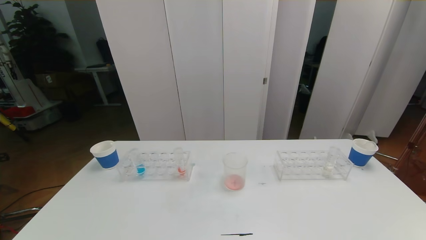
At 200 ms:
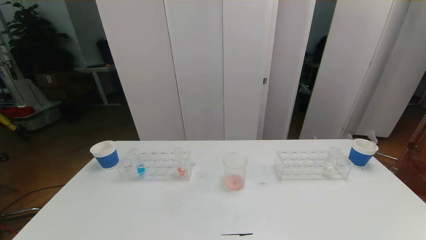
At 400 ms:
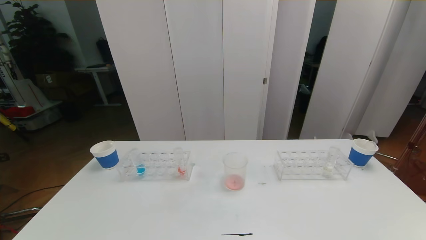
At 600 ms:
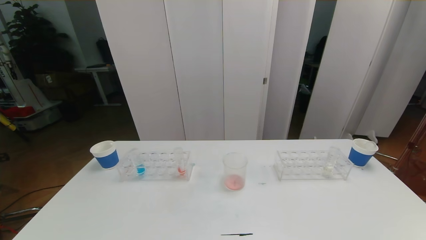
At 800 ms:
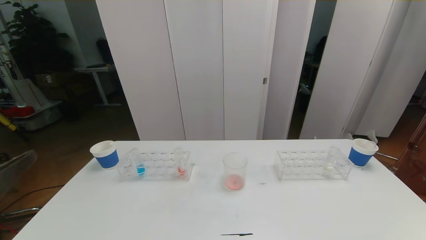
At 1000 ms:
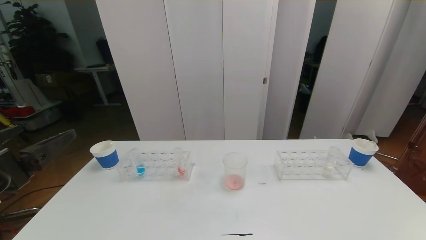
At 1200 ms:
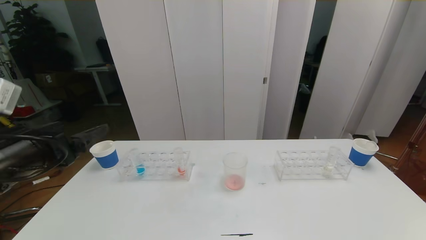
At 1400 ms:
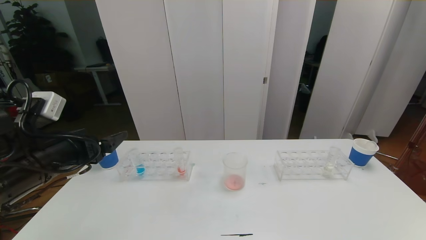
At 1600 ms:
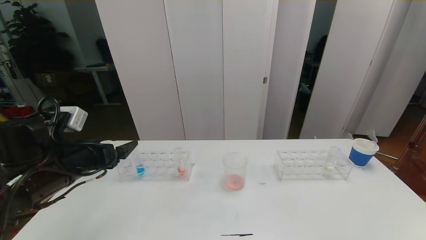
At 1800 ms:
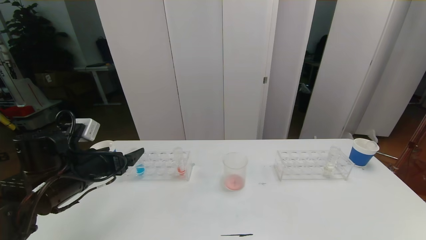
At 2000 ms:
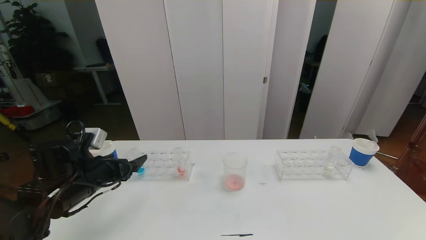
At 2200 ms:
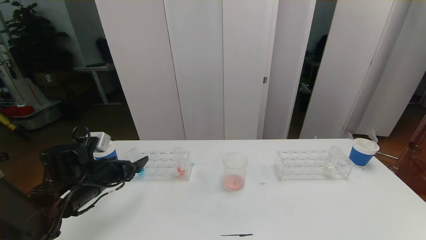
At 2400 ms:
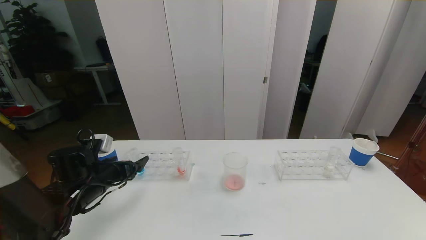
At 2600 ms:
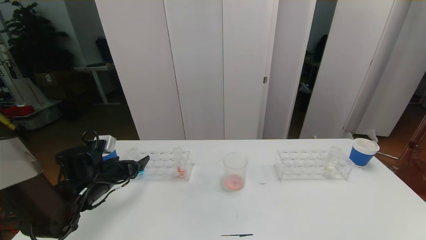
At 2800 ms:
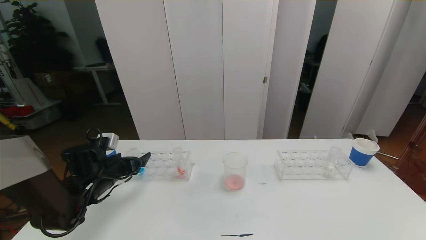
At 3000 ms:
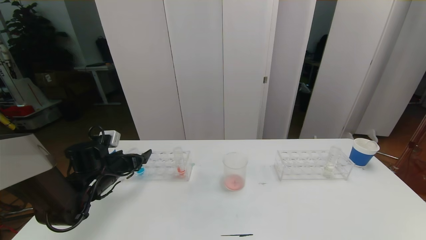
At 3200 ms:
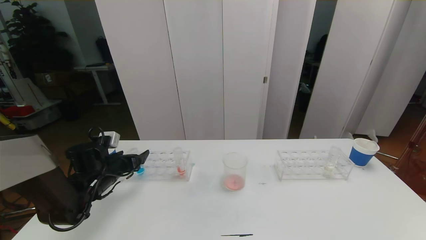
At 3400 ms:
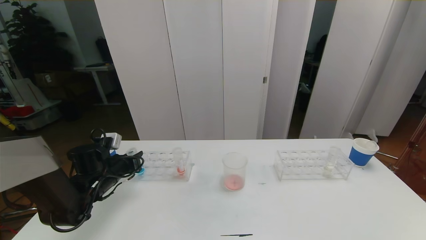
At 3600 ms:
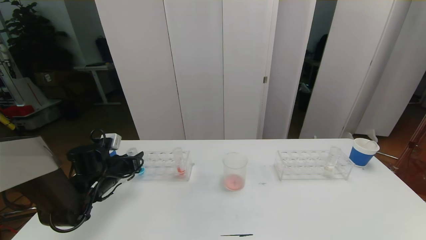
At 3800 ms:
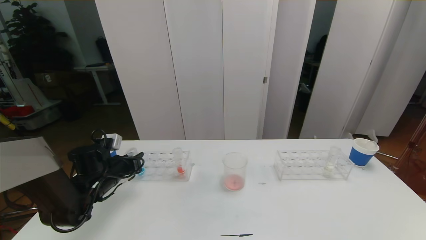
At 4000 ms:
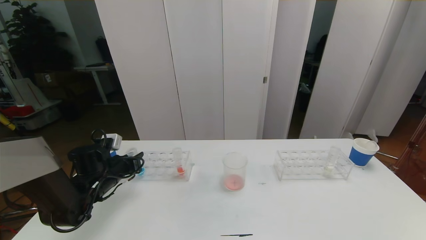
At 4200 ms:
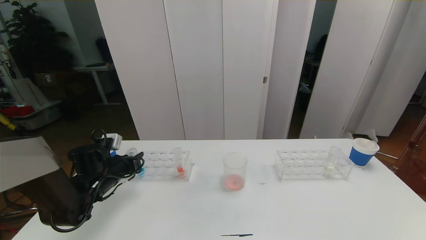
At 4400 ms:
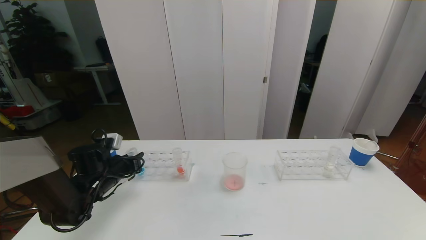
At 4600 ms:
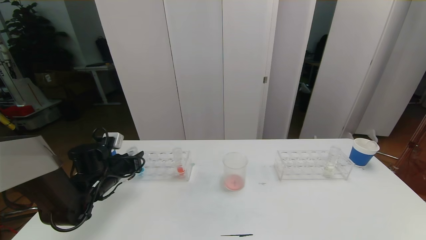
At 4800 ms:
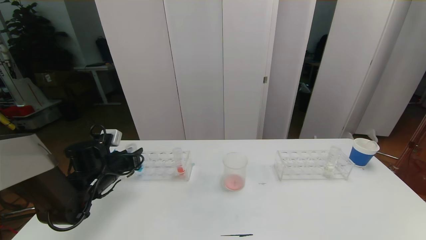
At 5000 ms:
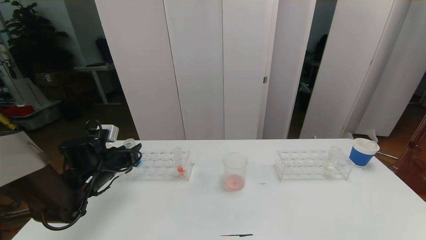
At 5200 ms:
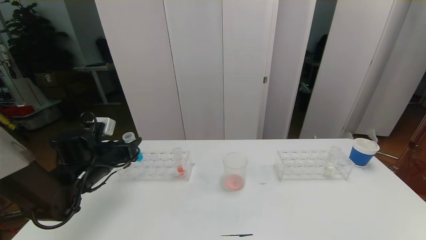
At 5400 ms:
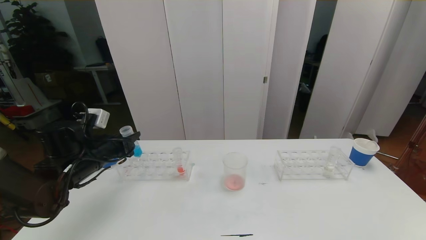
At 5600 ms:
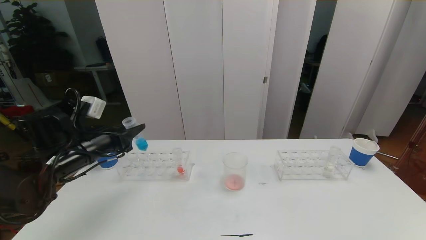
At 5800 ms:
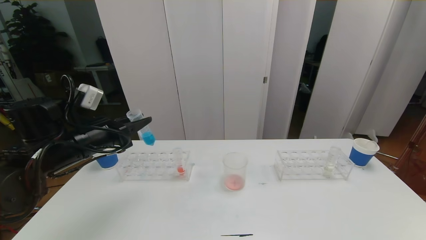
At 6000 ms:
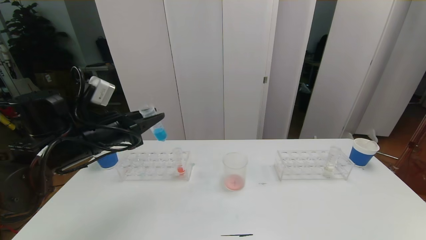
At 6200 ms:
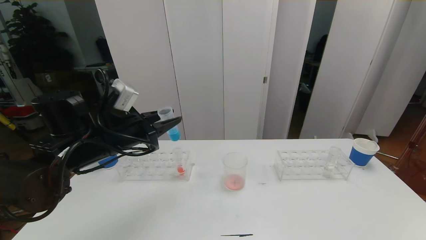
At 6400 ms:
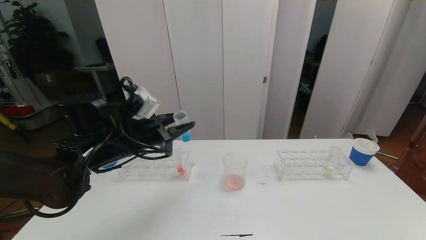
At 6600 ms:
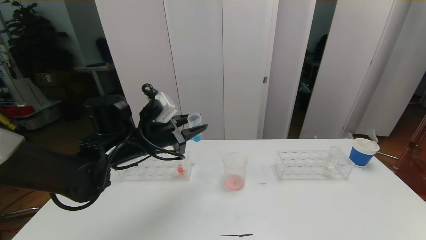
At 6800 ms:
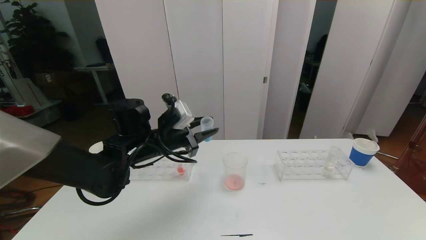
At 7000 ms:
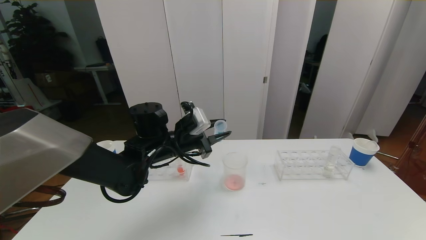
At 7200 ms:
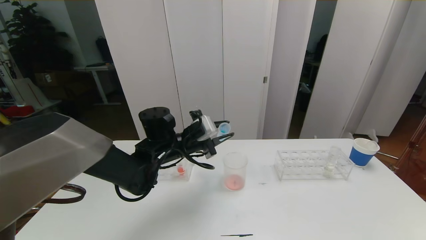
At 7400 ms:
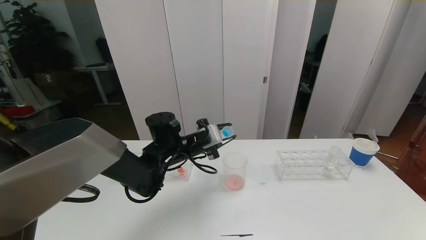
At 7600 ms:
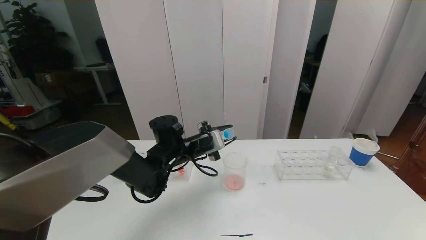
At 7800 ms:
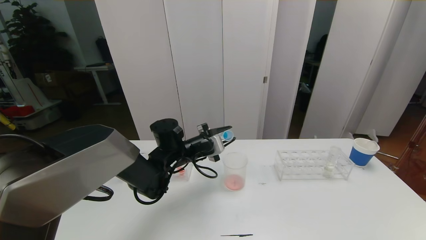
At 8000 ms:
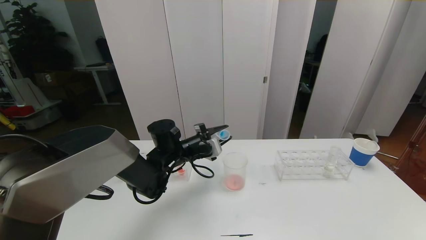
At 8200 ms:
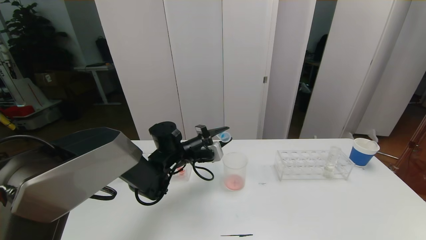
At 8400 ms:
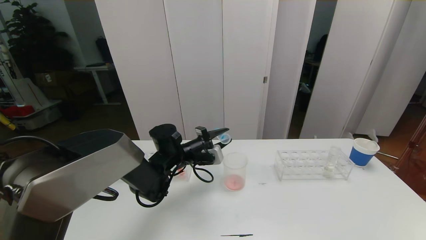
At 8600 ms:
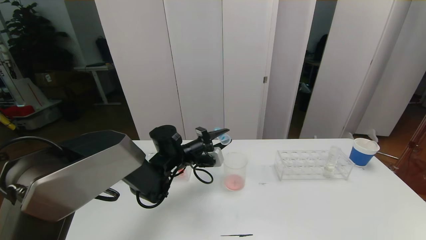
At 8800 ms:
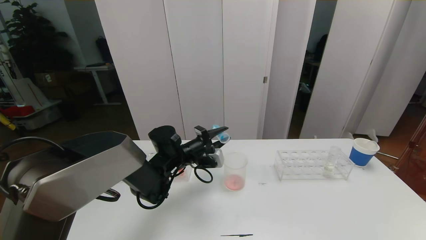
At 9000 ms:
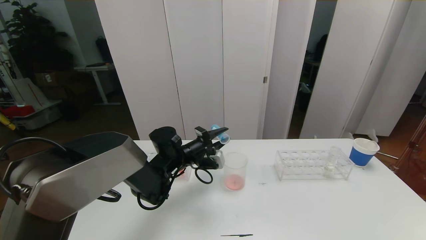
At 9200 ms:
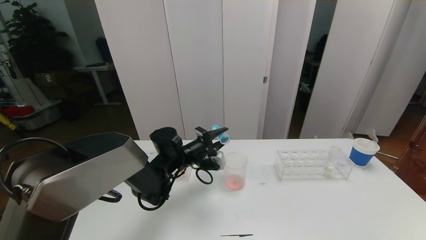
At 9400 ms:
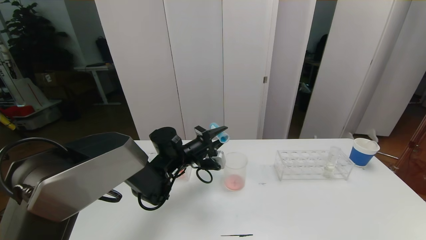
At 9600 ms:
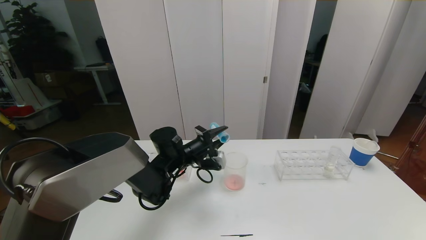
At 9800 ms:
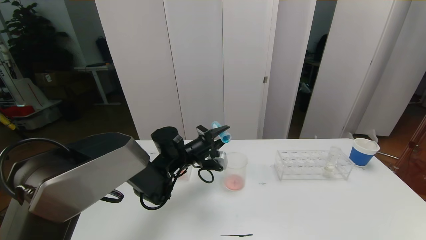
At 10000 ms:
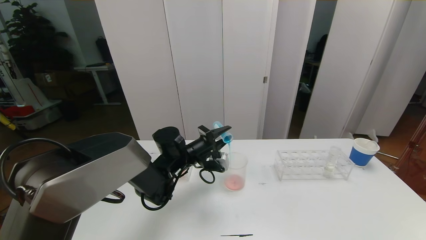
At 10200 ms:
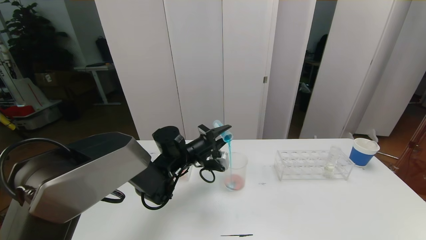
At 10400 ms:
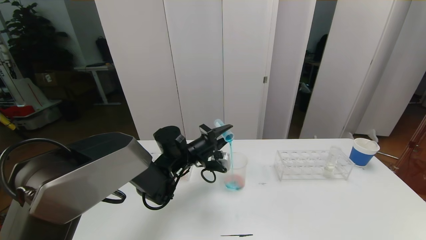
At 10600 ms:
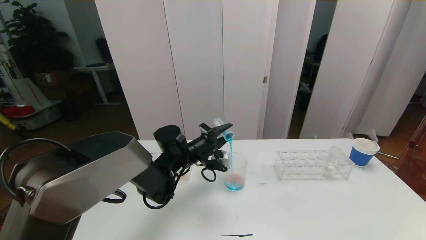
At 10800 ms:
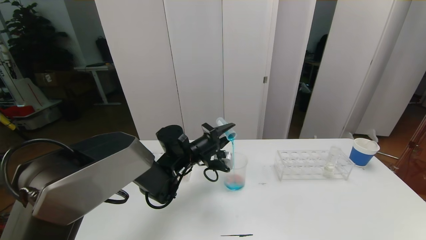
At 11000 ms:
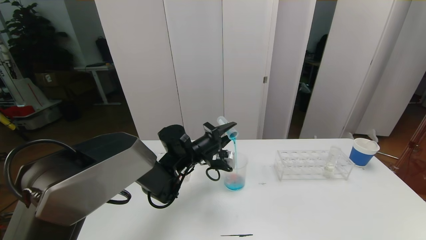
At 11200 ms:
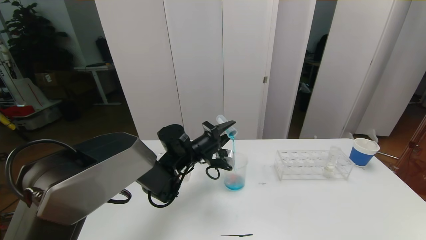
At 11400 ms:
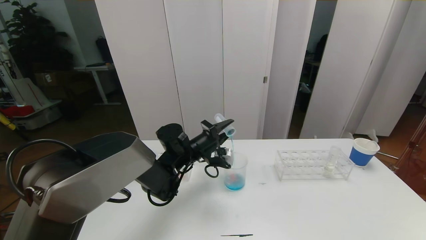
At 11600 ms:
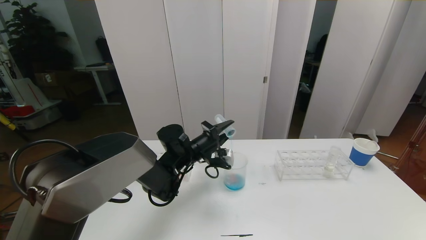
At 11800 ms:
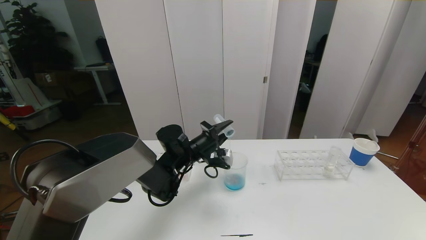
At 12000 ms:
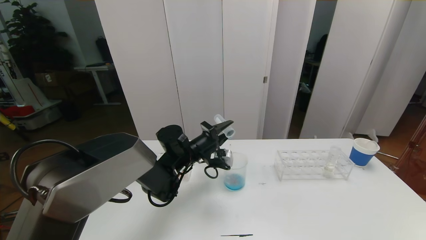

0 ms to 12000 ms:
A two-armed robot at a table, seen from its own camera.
Task of the whole recording: pick up the test tube with red pigment the test tube with blue pigment and the test tube with white pigment by grippers and pour them into the beaker.
0 ms to 1600 ms: The left gripper is displaced forward by about 30 cm.
1600 ms to 3000 ms: The left gripper moves downward and forward, roughly 15 cm.
3000 ms to 4400 ms: The left gripper closes.
4400 ms to 6000 ms: The left gripper heads upward, covering some 15 cm.
6000 ms to 7600 ms: The left gripper is displaced to the right, downward and forward by some 20 cm.
9000 ms to 10400 ms: The grippers stay close to where they were, moving slightly.
10400 ms to 12000 ms: Both grippers stay put.

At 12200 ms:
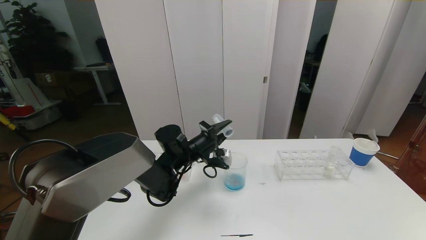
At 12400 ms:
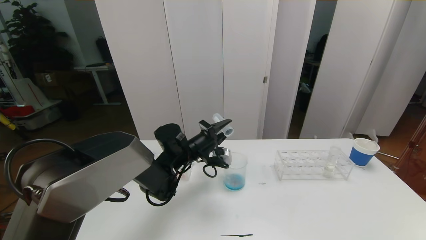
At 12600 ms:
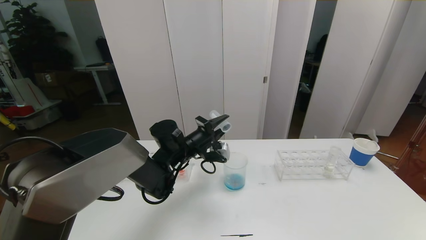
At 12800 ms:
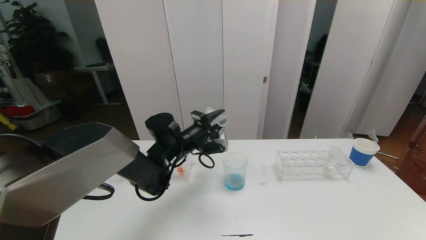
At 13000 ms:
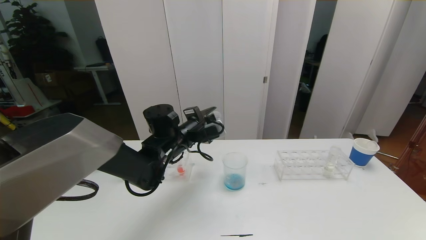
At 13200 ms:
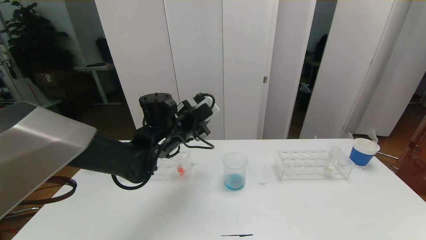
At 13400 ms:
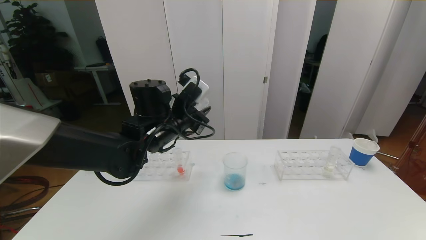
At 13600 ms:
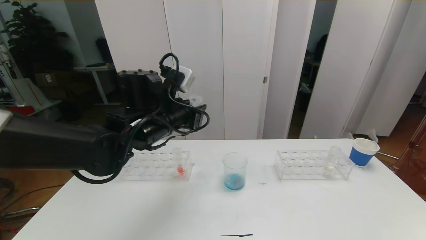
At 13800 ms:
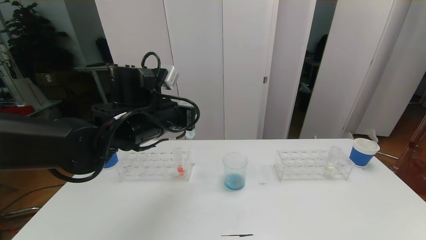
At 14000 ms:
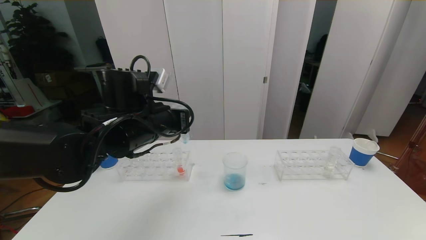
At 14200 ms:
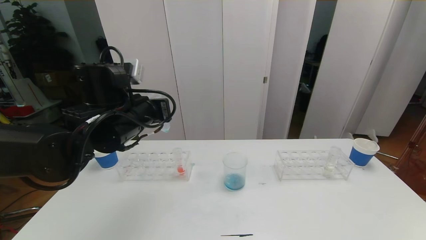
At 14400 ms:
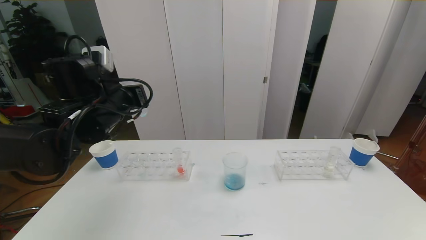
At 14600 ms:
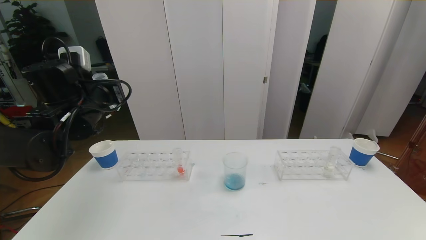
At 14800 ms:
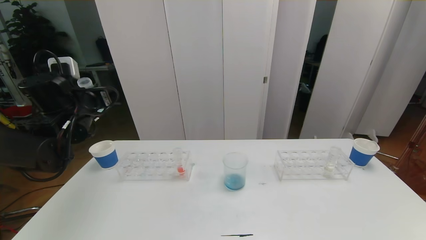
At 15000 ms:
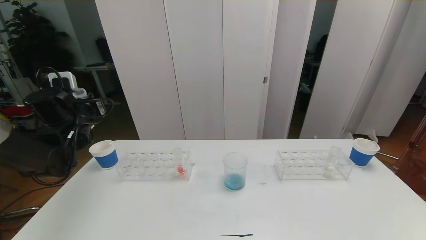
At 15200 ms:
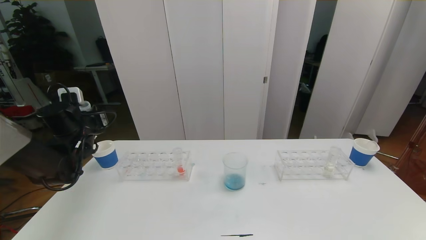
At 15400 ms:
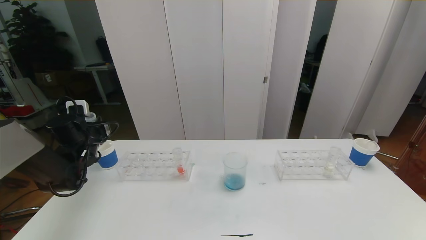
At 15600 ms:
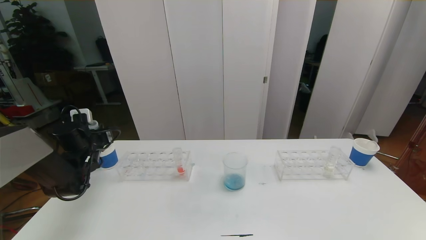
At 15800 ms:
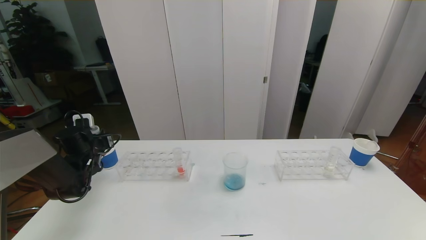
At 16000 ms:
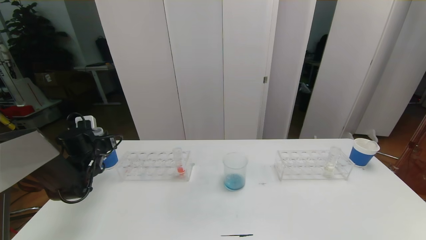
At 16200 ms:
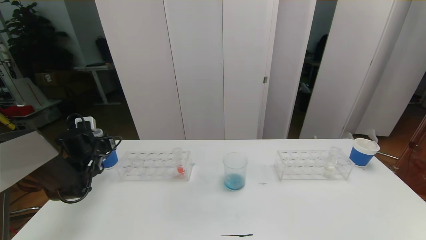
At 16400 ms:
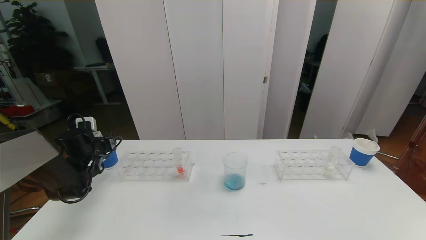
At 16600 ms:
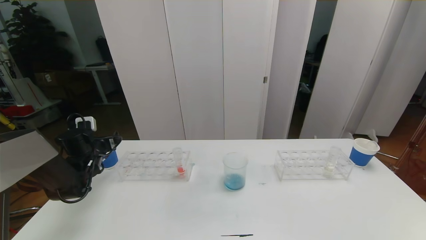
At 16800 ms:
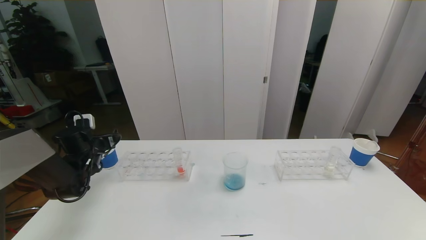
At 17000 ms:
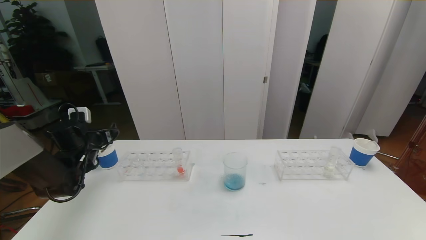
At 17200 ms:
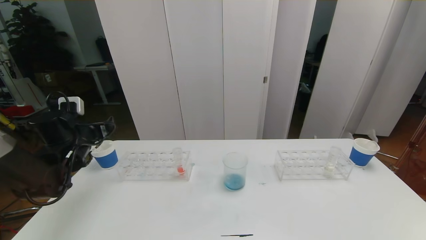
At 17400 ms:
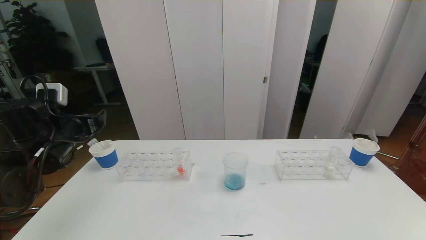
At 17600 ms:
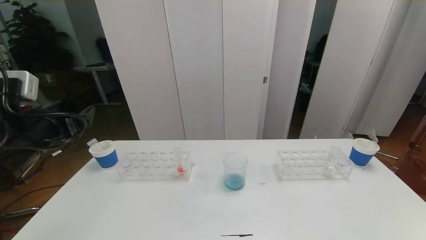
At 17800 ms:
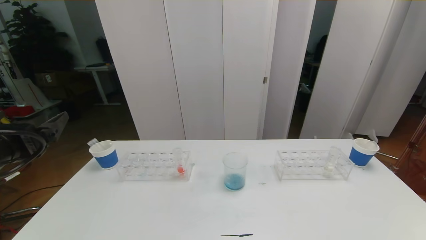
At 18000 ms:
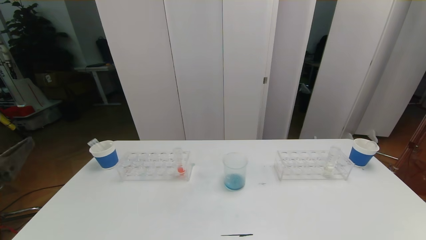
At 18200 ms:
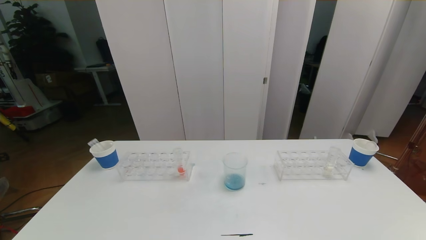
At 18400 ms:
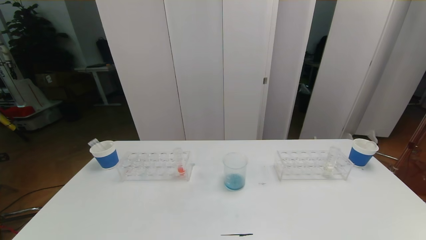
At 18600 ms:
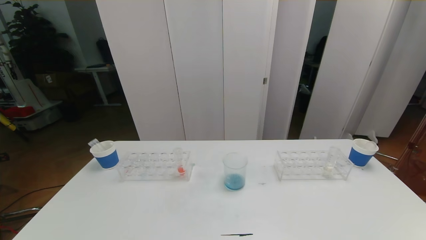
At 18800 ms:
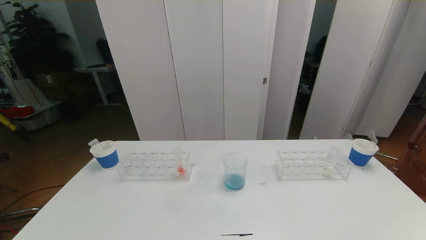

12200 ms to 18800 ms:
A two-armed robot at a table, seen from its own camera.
Task of the whole recording: pick up the test tube with red pigment the test tube with blue pigment and the test tube with white pigment by grippers and pour them into the beaker.
12200 ms to 13800 ms: The left gripper is displaced upward and backward by about 15 cm.
13800 ms to 15400 ms: The left gripper shifts roughly 25 cm to the left and downward.
15400 ms to 17200 ms: The left gripper goes downward and returns, about 5 cm each way, and opens.
17200 ms to 18800 ms: The left gripper travels backward by about 40 cm.
